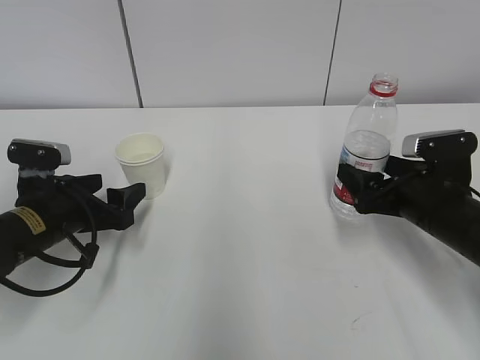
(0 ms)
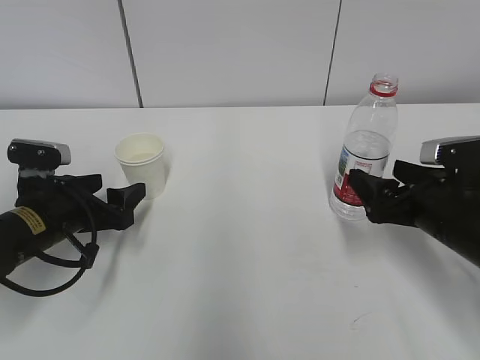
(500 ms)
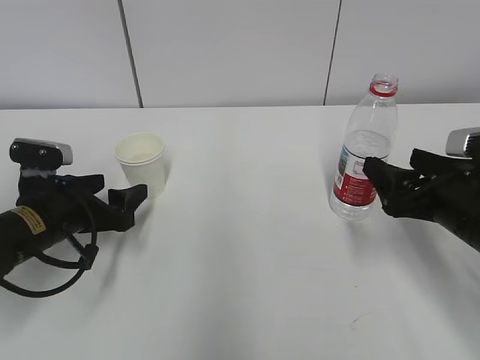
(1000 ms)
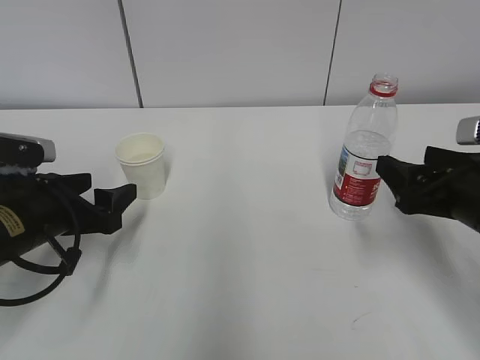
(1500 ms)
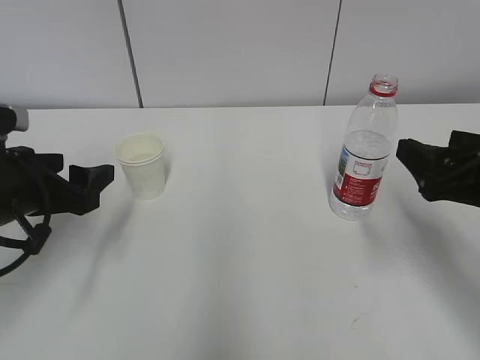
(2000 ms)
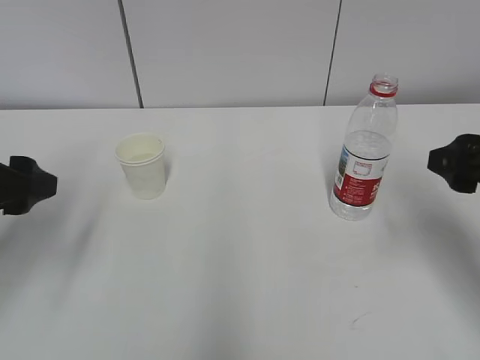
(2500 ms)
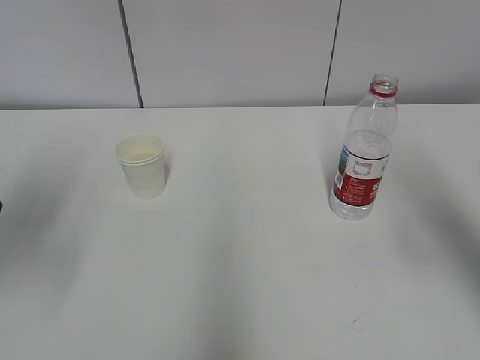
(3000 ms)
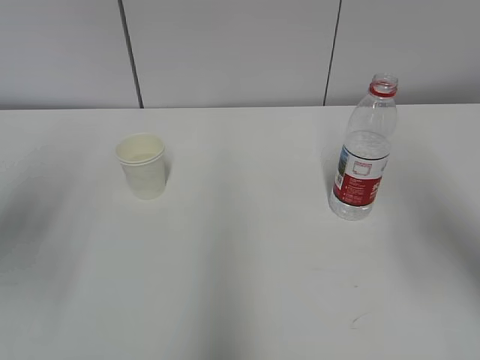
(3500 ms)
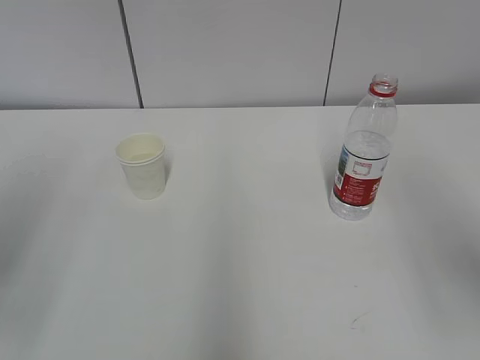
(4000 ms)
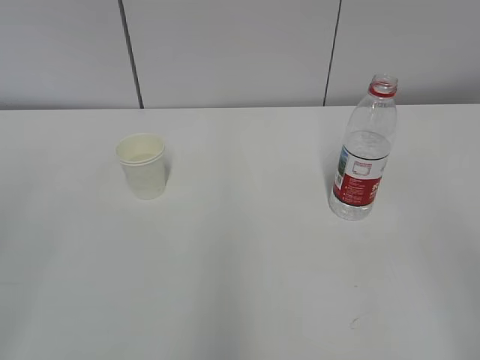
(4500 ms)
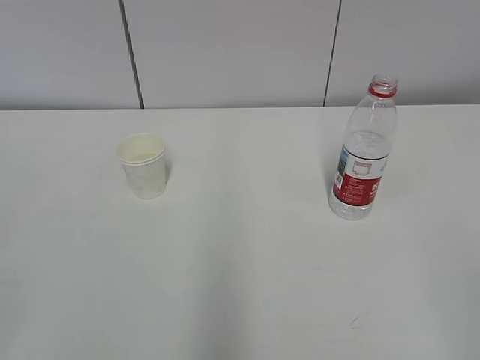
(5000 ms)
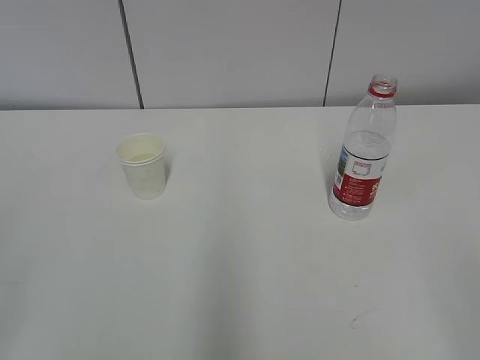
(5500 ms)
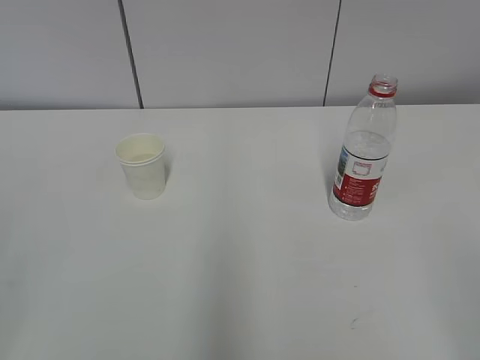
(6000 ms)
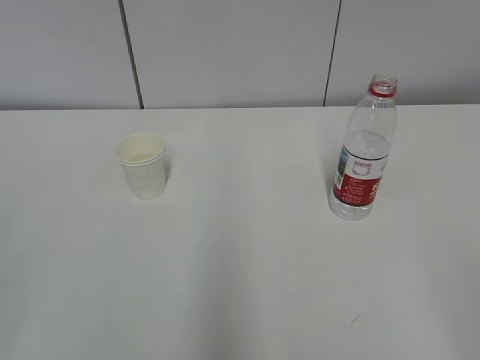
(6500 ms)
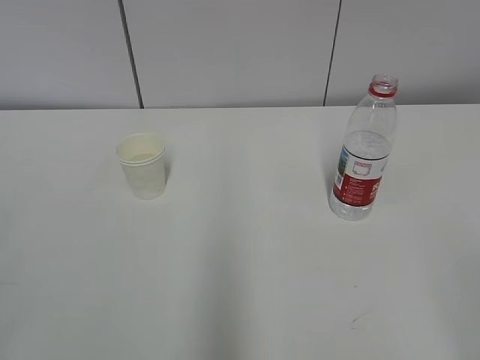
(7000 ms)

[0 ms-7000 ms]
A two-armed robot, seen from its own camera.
0 ms to 2000 ms: The right gripper moves upward and backward, some 10 cm. The left gripper goes roughly 5 cm upward.
2000 ms to 3500 ms: The right gripper shifts roughly 15 cm upward, while the left gripper shifts roughly 15 cm upward and backward.
3500 ms to 5000 ms: Both grippers travel together backward, about 20 cm.

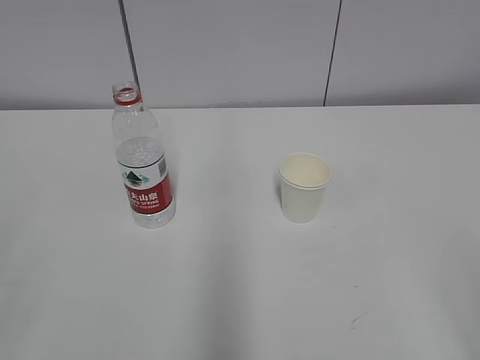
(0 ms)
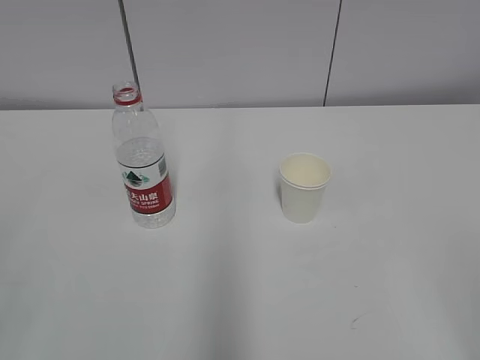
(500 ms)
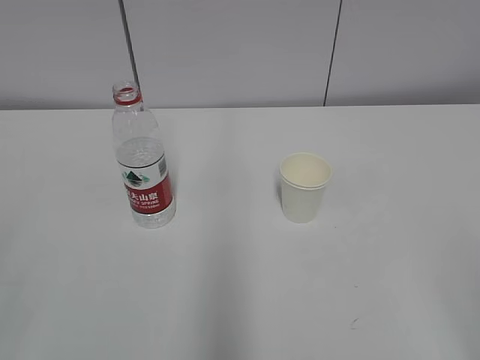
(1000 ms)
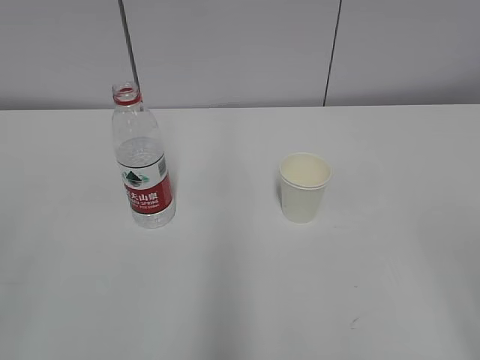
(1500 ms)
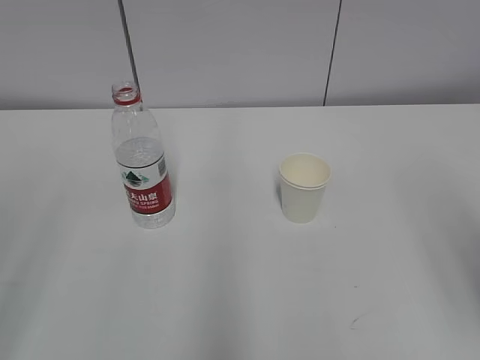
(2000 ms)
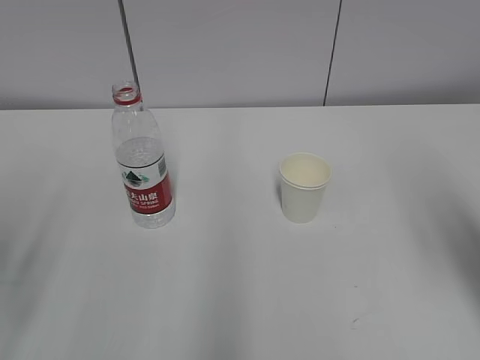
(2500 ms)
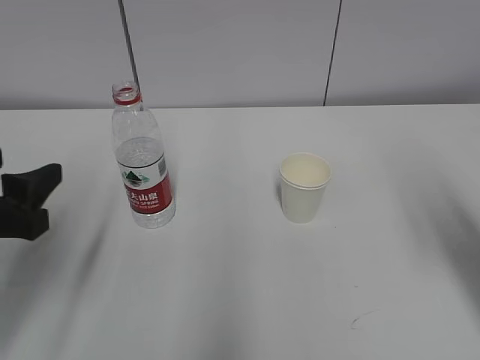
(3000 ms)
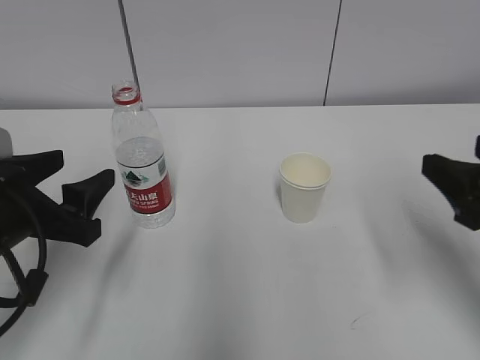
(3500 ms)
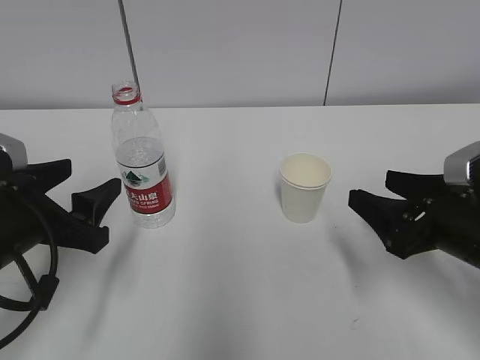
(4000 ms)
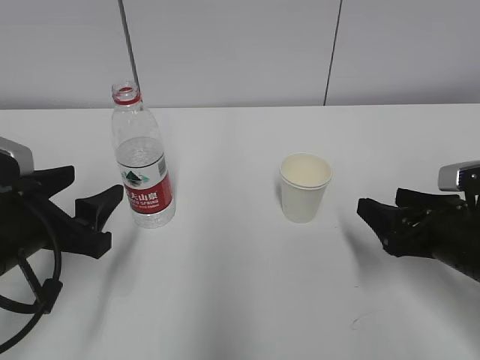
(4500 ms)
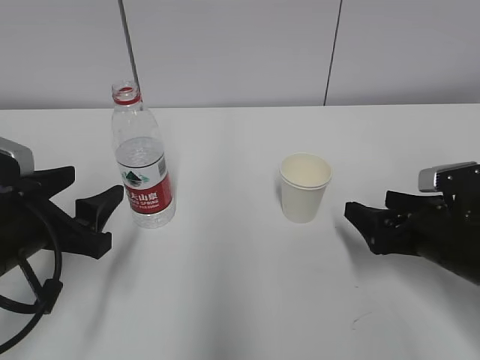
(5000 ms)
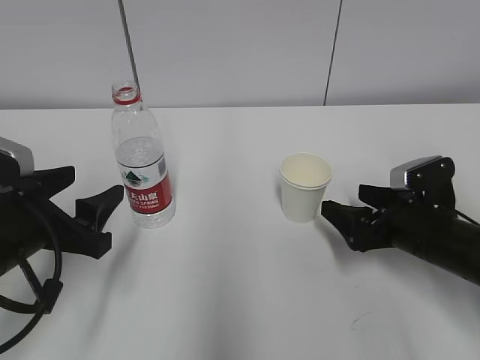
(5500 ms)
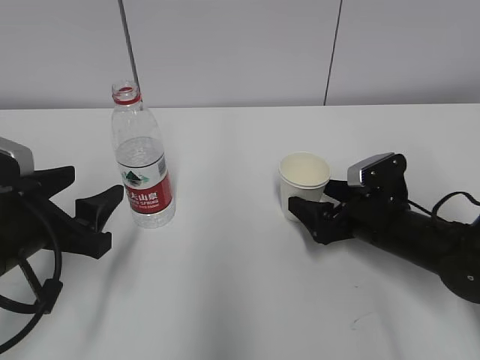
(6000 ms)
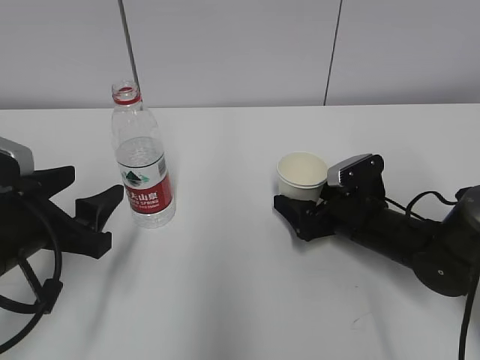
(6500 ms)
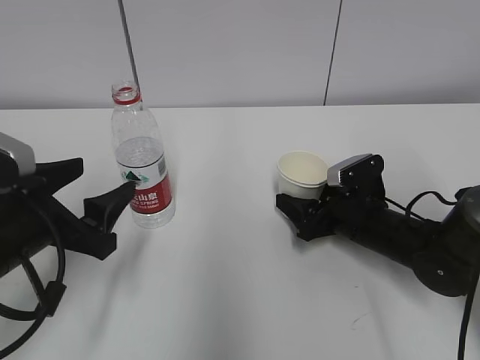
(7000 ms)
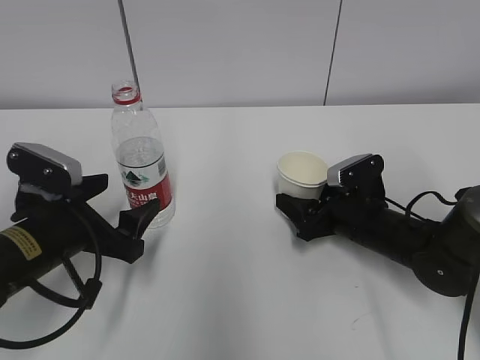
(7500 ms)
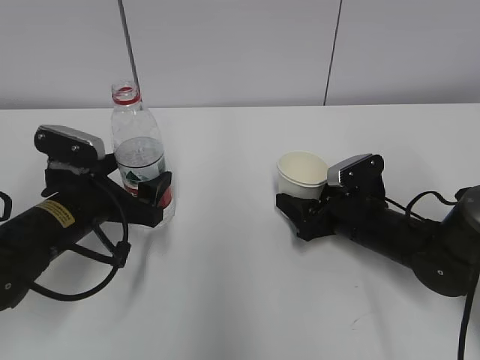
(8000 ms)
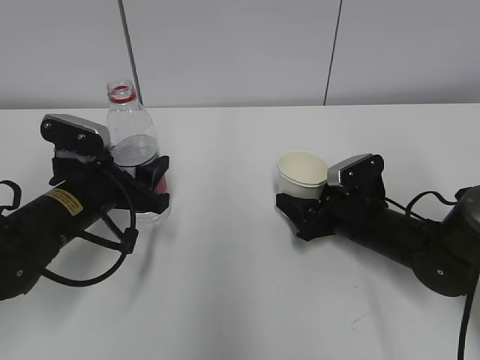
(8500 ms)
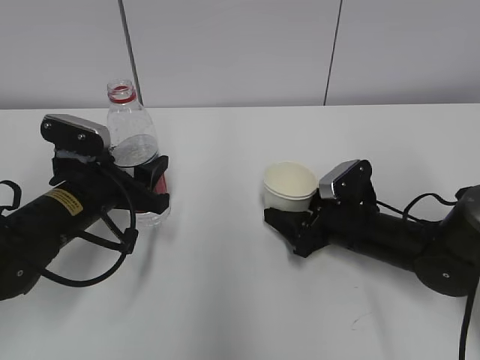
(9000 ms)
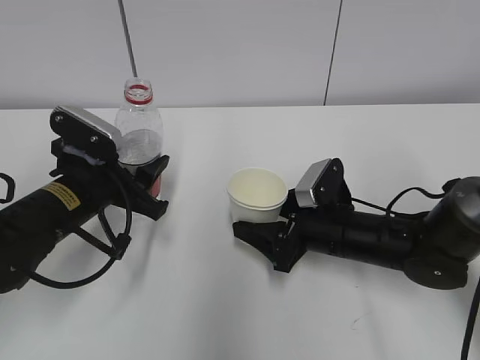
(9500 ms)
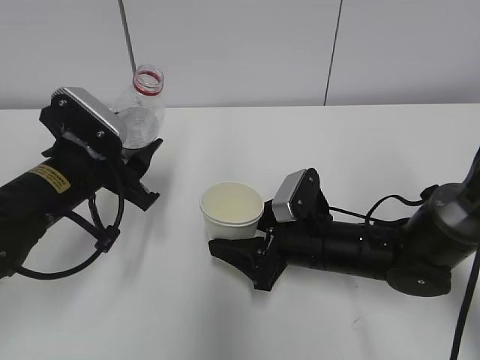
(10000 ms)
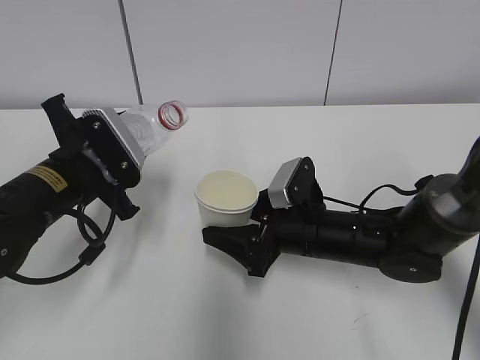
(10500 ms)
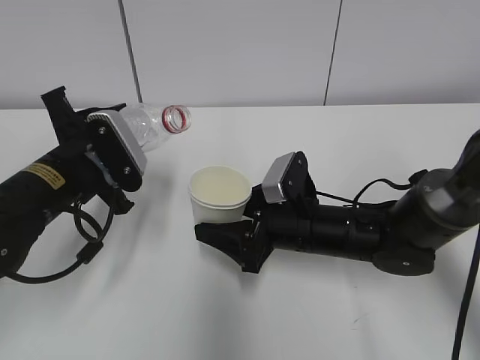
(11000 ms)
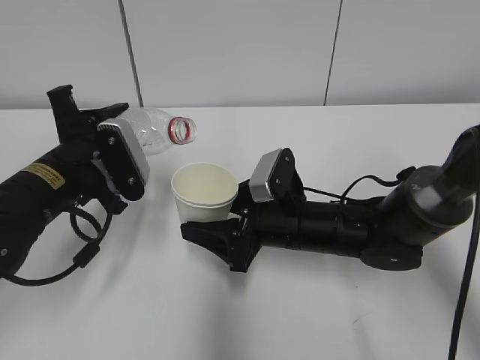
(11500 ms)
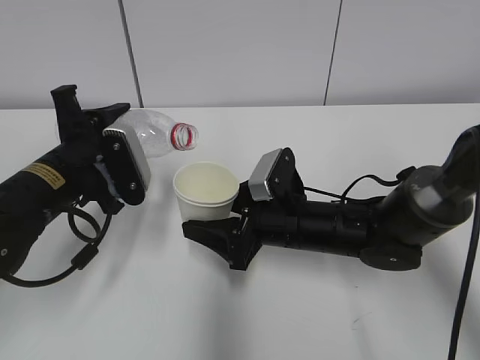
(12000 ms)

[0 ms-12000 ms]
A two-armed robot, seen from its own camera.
Step, 0 ms to 7000 ms: Grab the paper cup with the right hand.
Step, 8000 ms to 11000 ms: Lift the paper cup with the right hand.
2000 ms to 4000 ms: The left gripper moves forward, downward and to the right, some 25 cm, while the right gripper is displaced downward and forward by roughly 25 cm.
4000 ms to 6000 ms: The right gripper is displaced forward and downward by approximately 10 cm, and opens.
6000 ms to 8000 ms: The right gripper closes up; the left gripper moves forward, approximately 5 cm, and opens up.
8000 ms to 10000 ms: The right gripper is displaced to the left by about 10 cm. Meanwhile the left gripper closes its fingers.

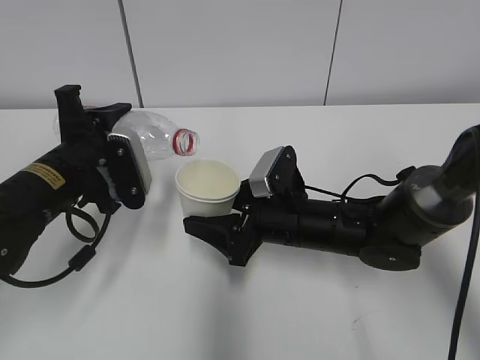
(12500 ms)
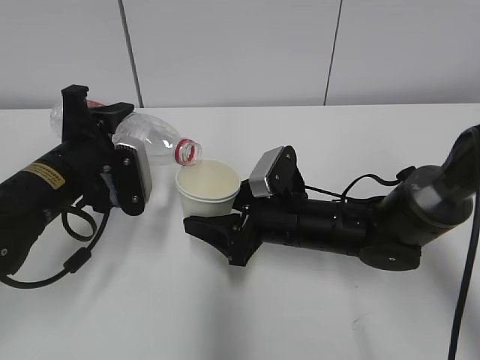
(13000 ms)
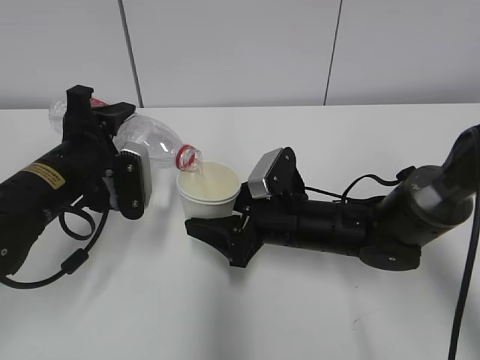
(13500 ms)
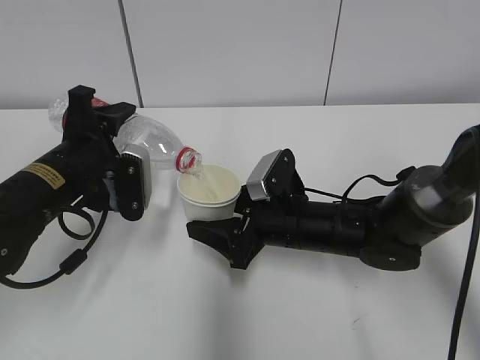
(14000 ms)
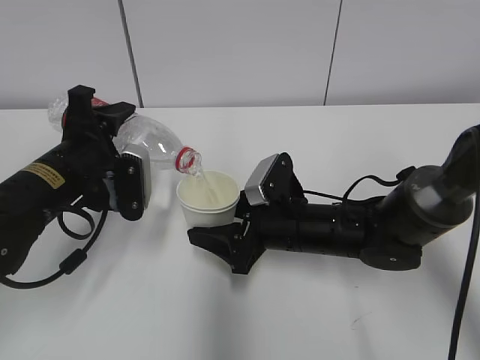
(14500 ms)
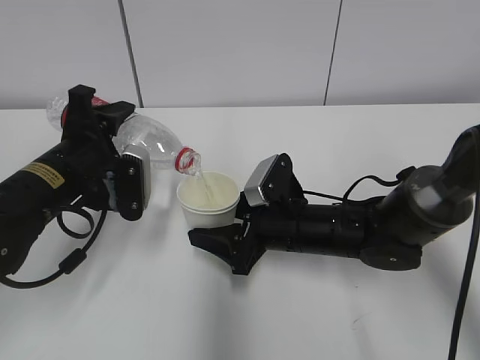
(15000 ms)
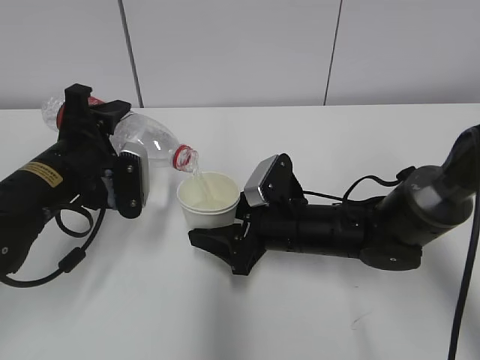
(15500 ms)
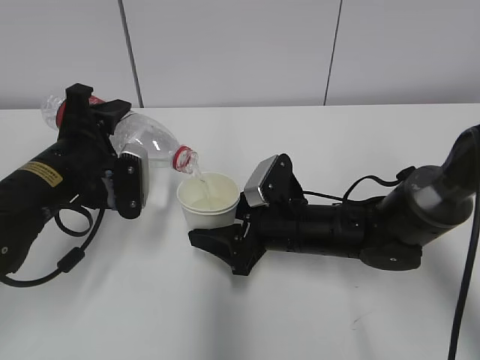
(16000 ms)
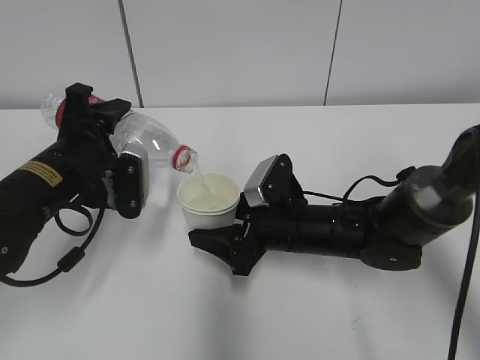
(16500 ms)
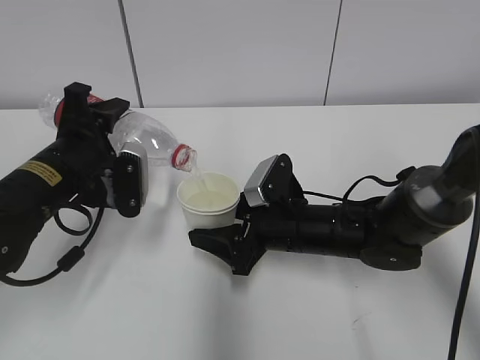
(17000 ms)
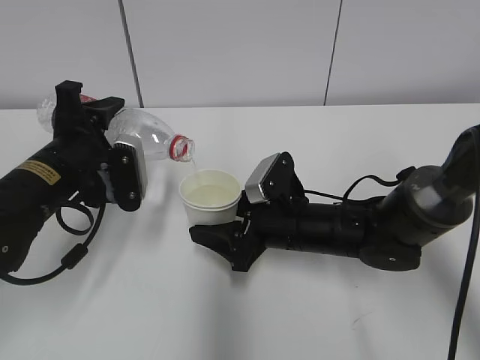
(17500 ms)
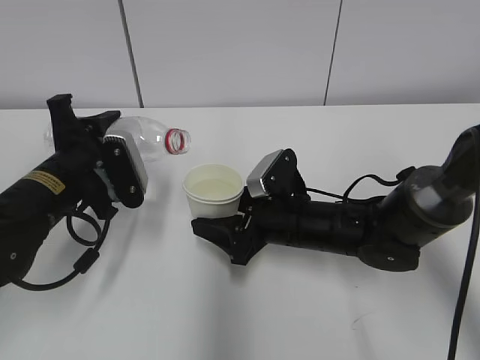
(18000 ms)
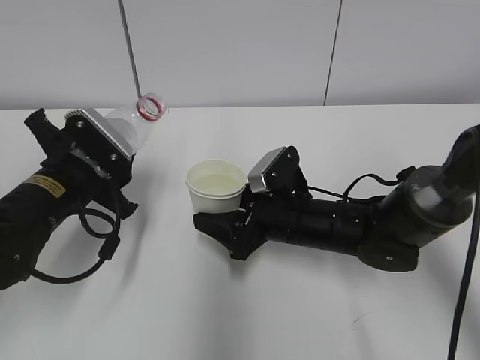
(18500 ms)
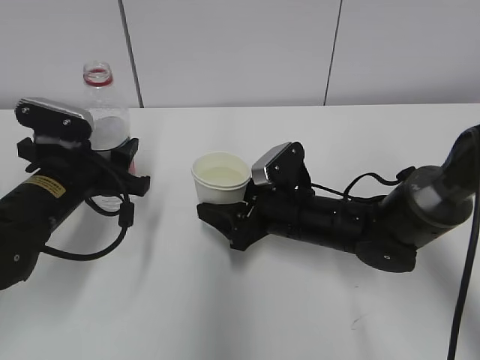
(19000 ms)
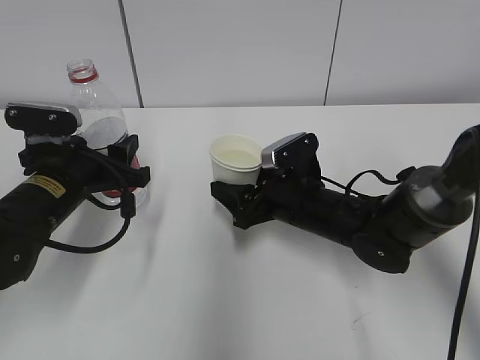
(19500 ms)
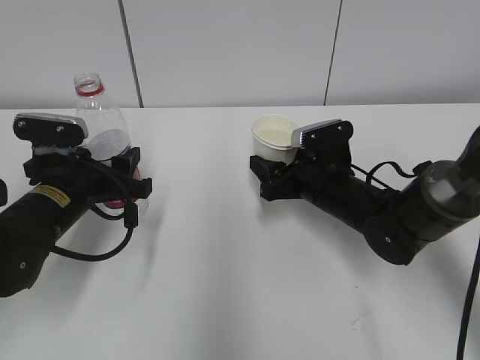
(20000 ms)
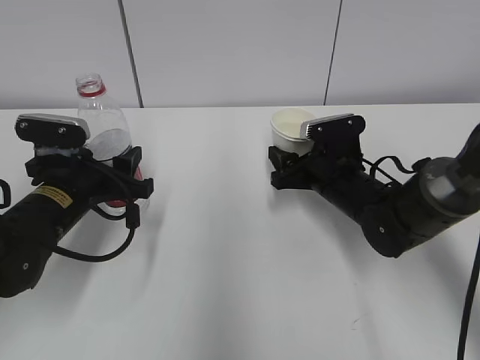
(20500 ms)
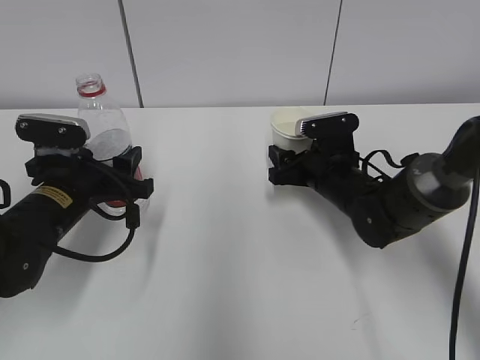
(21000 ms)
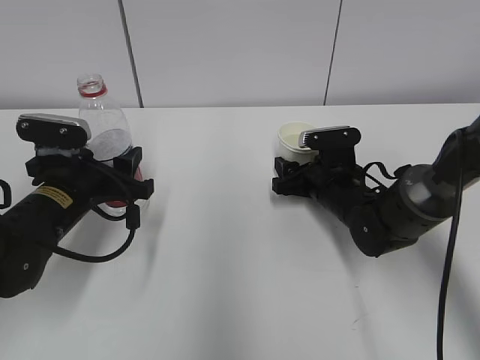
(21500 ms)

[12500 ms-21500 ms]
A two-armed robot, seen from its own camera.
Step, 12500 ms to 14500 ms: Fill water with the right hand.
Step, 15000 ms to 16000 ms: Collect water with the left hand.
Step, 16500 ms to 18500 ms: Place the paper cup with the right hand.
12500 ms to 14500 ms: The grippers stay close to where they were, moving slightly.
14500 ms to 17000 ms: Both grippers stay about where they are.
19500 ms to 21500 ms: The right gripper goes about 5 cm to the right.
